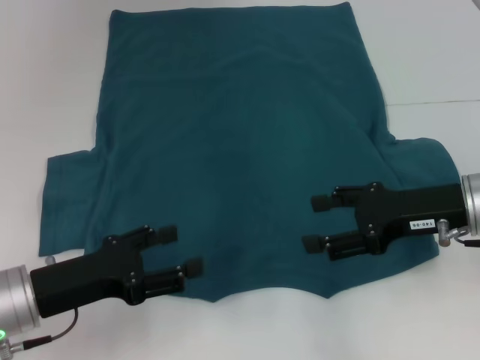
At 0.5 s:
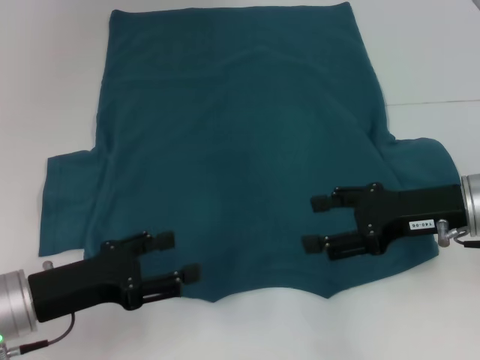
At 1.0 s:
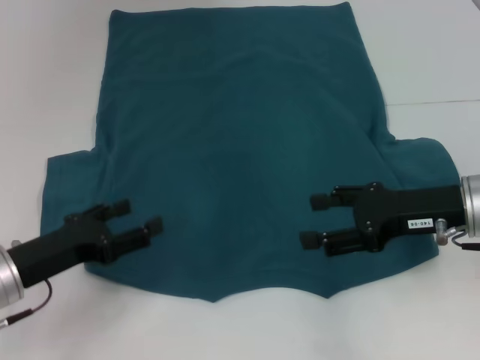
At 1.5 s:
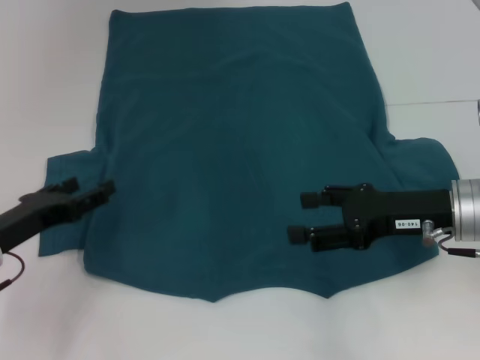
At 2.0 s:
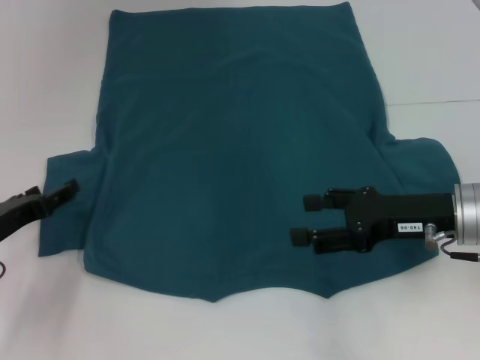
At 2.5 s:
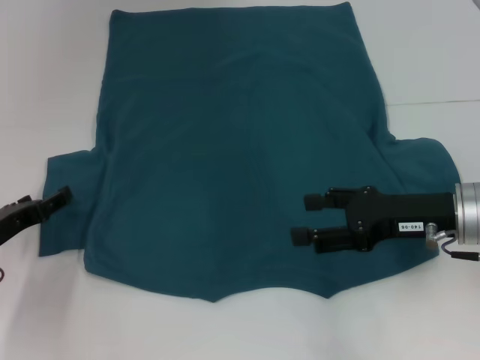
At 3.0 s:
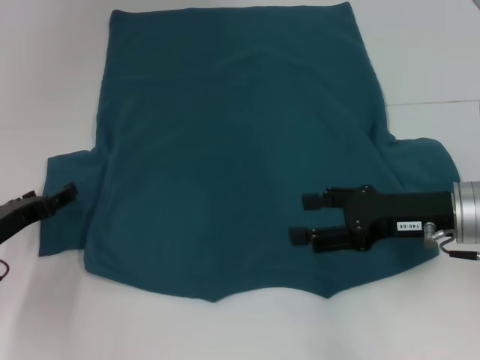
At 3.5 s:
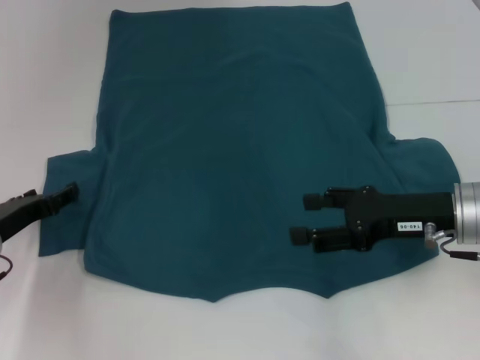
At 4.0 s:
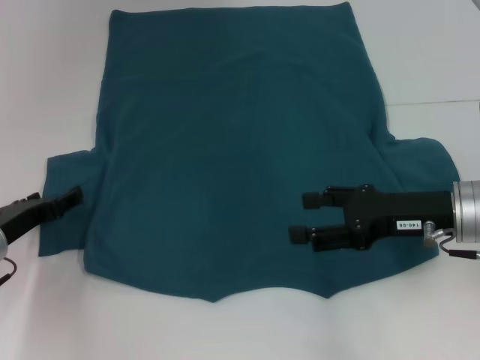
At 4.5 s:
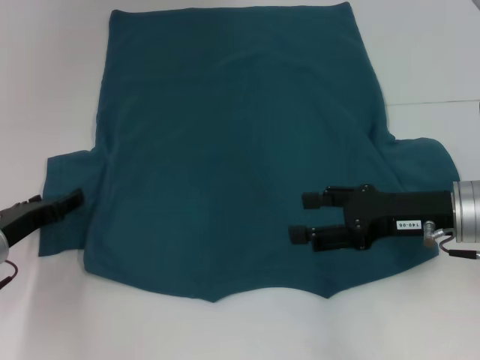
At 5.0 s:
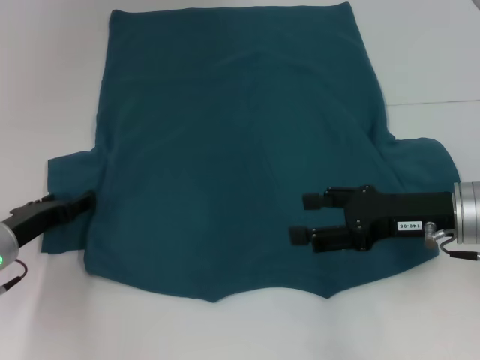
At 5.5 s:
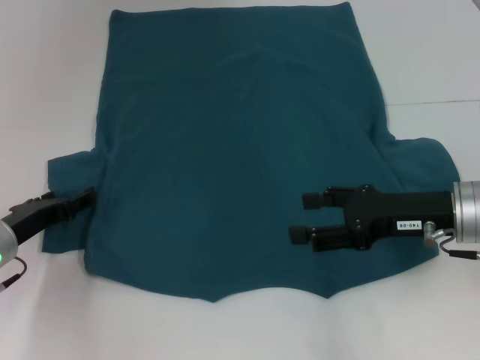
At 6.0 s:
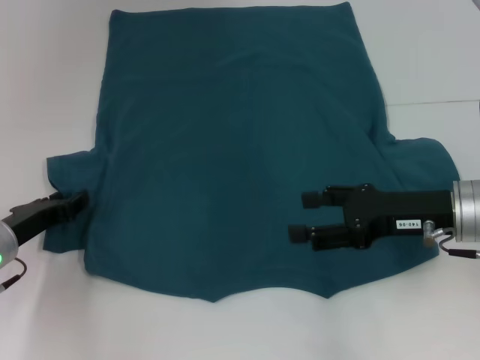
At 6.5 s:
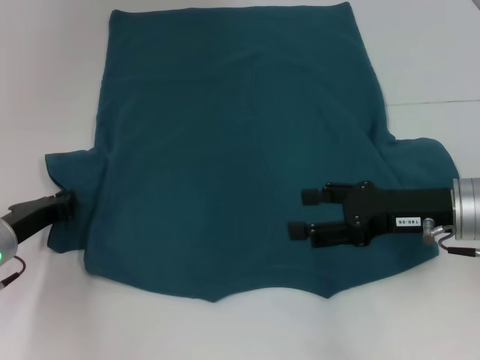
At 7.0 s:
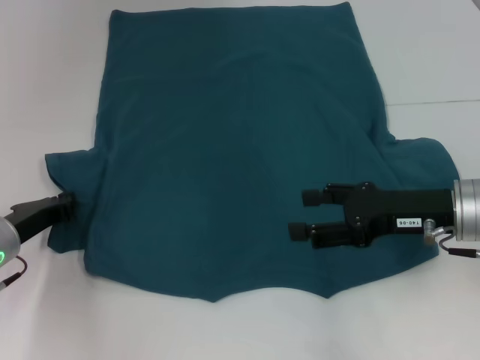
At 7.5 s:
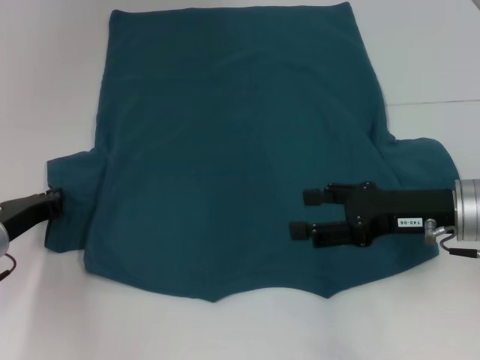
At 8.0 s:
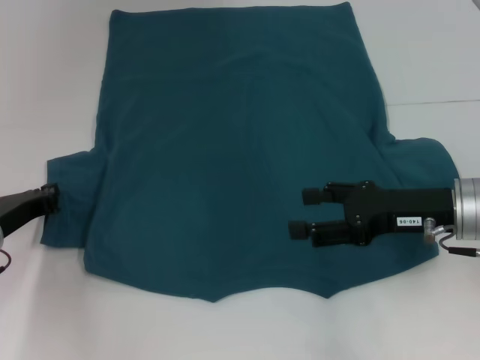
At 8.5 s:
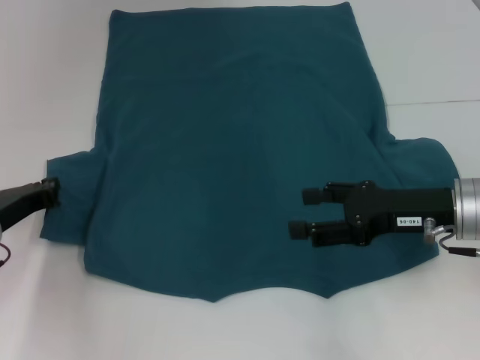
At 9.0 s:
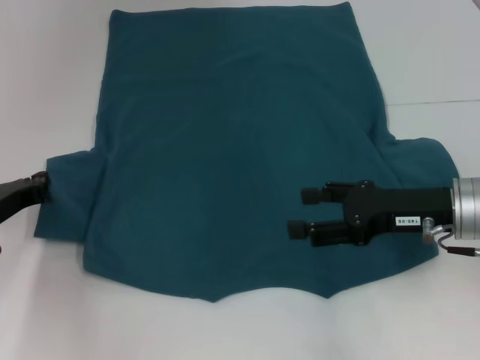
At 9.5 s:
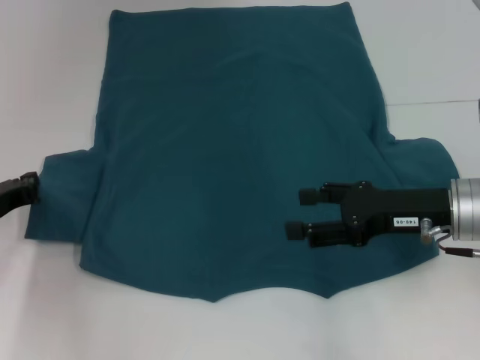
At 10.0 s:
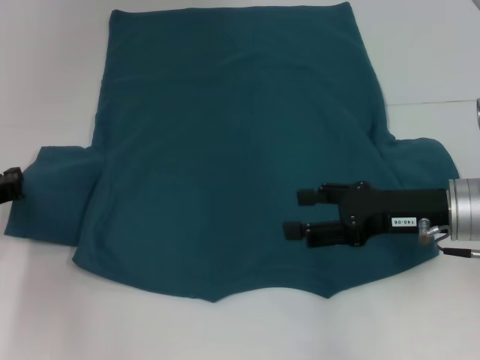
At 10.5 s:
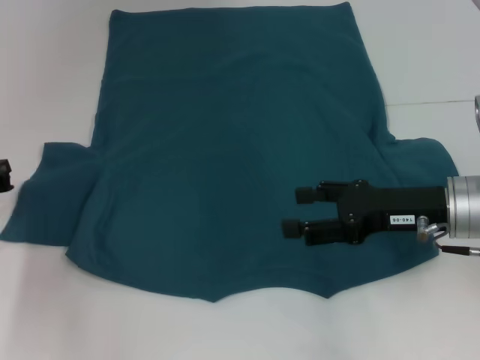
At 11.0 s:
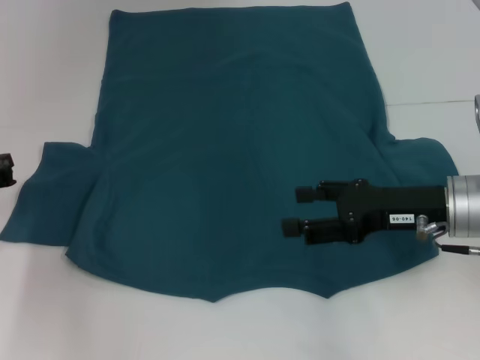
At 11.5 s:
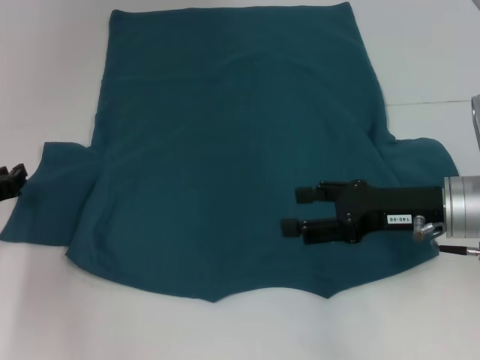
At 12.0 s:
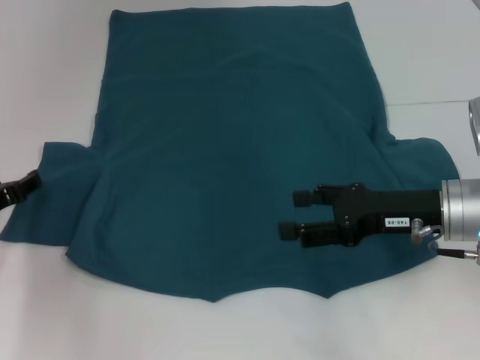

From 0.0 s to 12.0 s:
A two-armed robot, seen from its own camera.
From 0.0 s to 2.0 s: The left gripper is displaced to the left and forward by roughly 10 cm.
From 2.0 s to 4.0 s: The grippers stay close to where they were, moving slightly.
From 4.0 s to 6.0 s: Both grippers stay put.
From 6.0 s to 8.0 s: The left gripper closes.
From 8.0 s to 10.0 s: The grippers stay close to where they were, moving slightly.
From 10.0 s to 12.0 s: The left gripper opens up.

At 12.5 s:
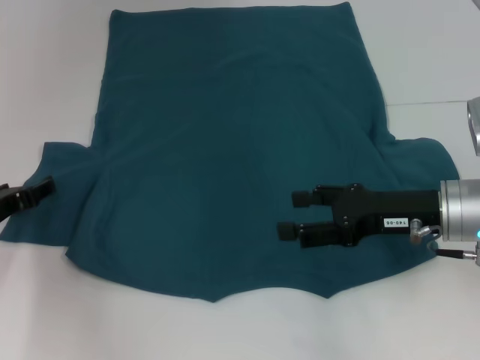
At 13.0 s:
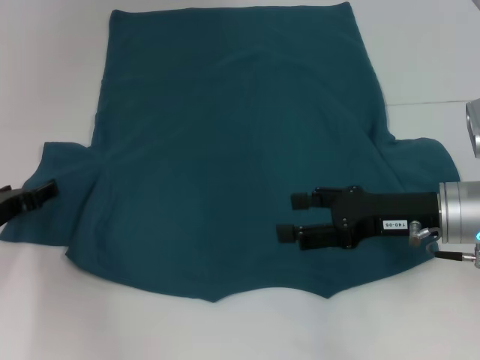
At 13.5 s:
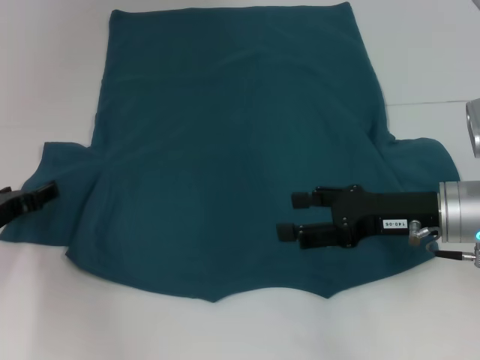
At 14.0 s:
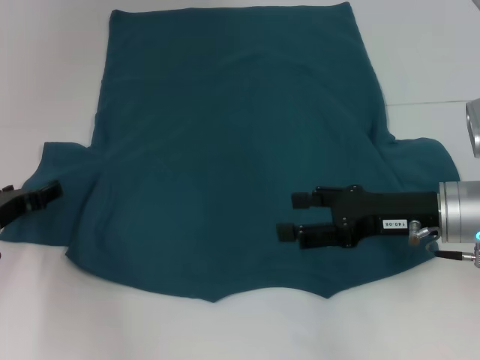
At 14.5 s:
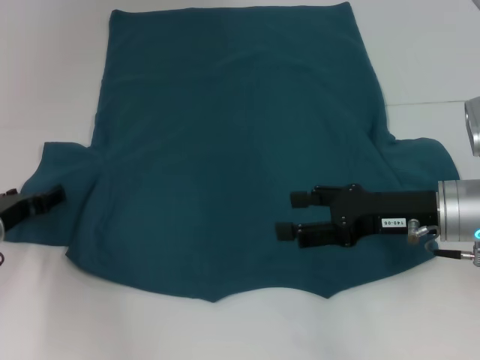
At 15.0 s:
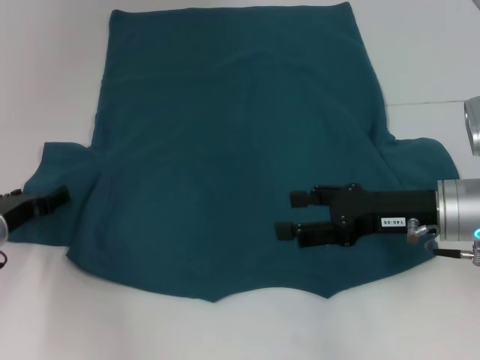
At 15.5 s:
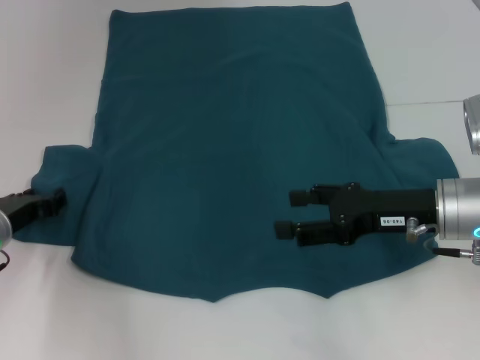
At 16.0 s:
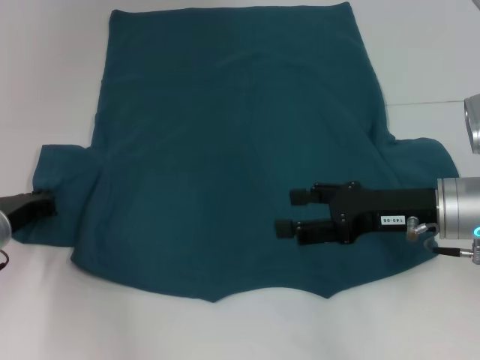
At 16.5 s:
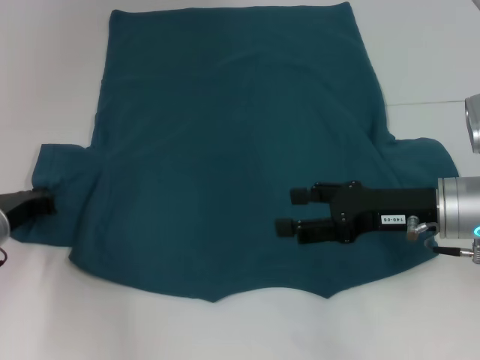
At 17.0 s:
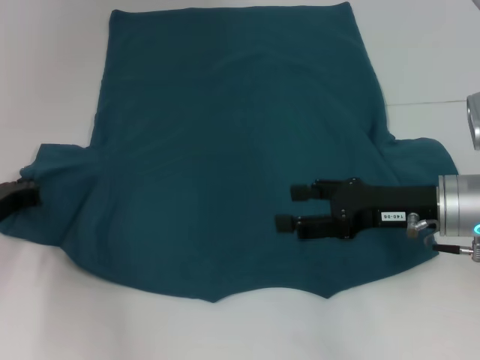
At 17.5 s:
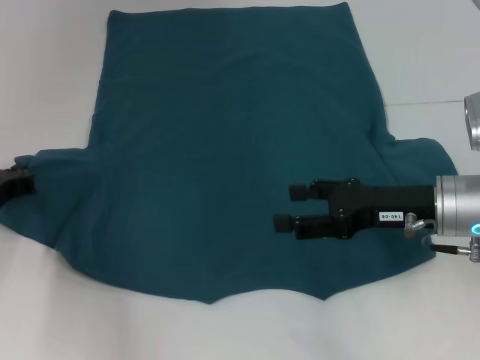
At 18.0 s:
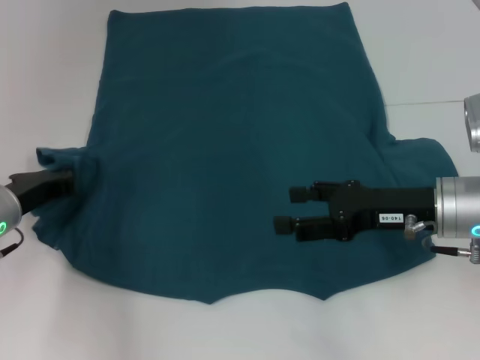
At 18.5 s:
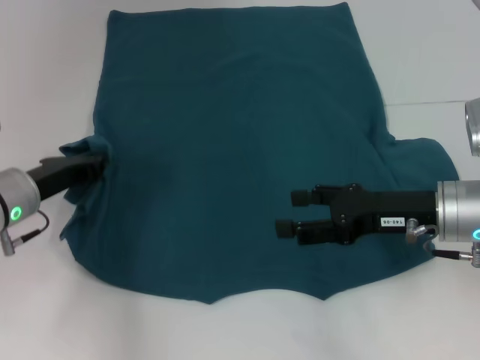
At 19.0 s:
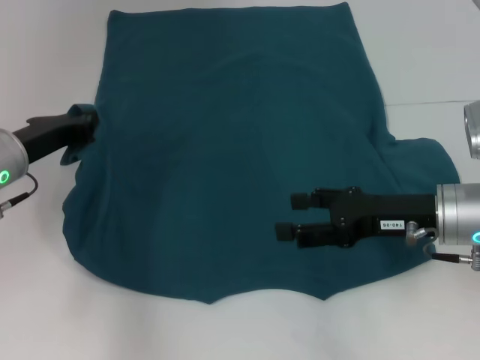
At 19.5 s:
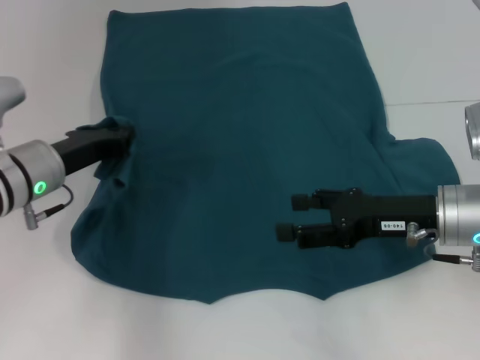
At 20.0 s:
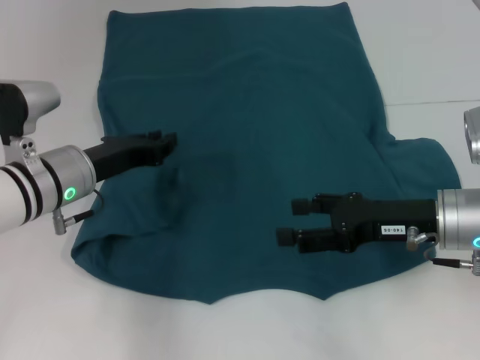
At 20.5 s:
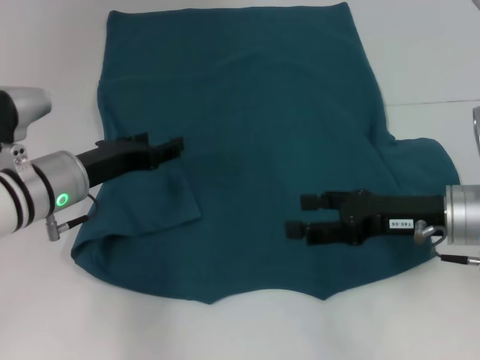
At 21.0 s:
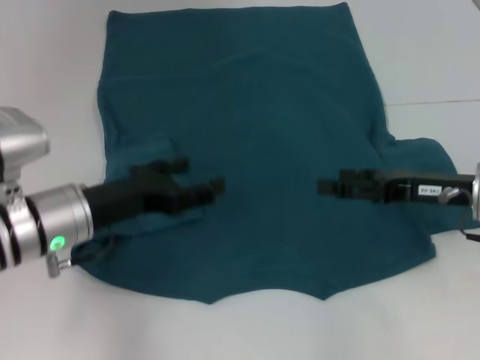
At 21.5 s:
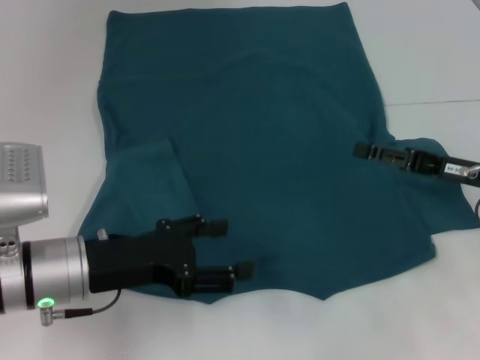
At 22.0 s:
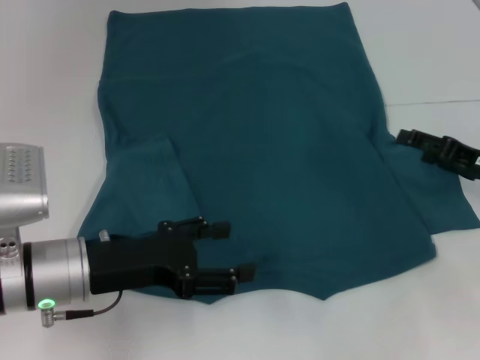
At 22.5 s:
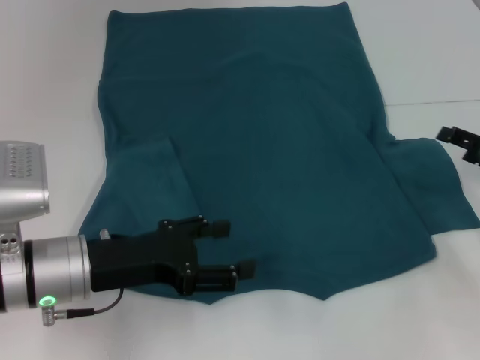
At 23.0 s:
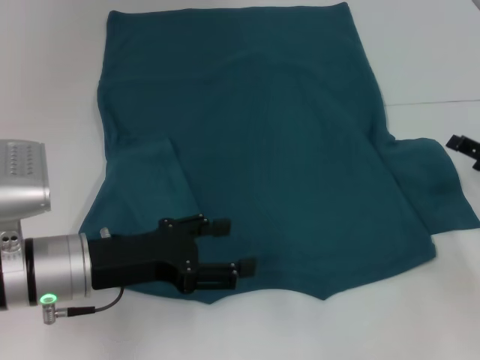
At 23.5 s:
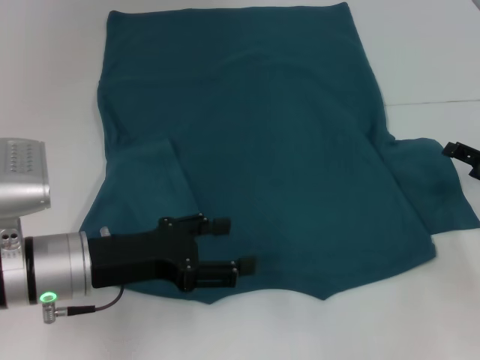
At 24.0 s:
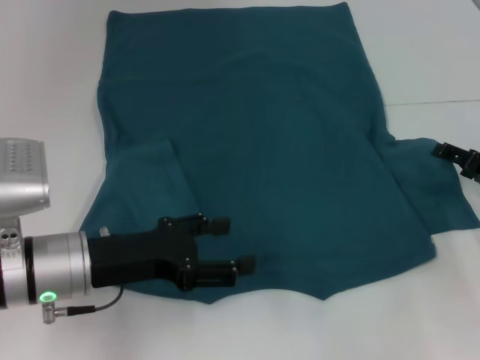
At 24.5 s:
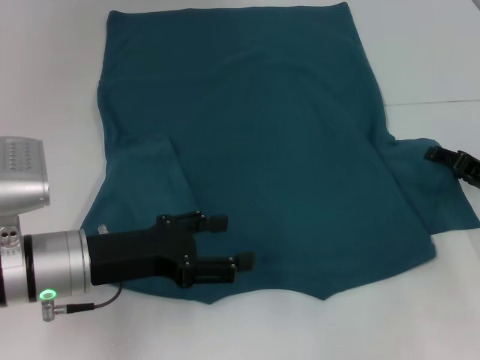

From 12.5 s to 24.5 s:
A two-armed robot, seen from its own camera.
Step, from 12.5 s to 20.5 s: Fold the bottom left sleeve with your left hand.
From 12.5 s to 14.5 s: The grippers make only small movements.
From 14.5 s to 16.5 s: The left gripper closes up.
From 16.5 s to 18.5 s: The left gripper moves about 5 cm.
From 18.5 s to 20.5 s: The left gripper shifts by some 5 cm, and opens up.
From 20.5 s to 22.5 s: The left gripper goes some 10 cm backward. The right gripper moves to the right, some 10 cm.
From 22.5 s to 24.5 s: The grippers move only a little.

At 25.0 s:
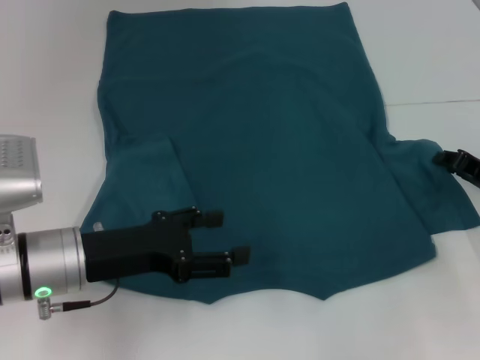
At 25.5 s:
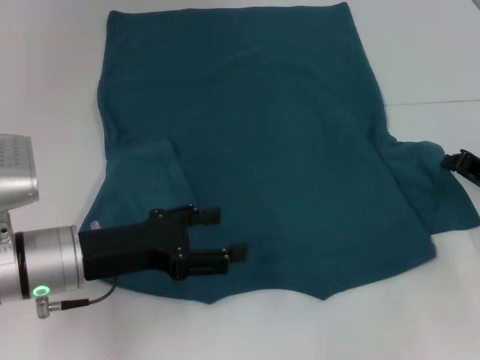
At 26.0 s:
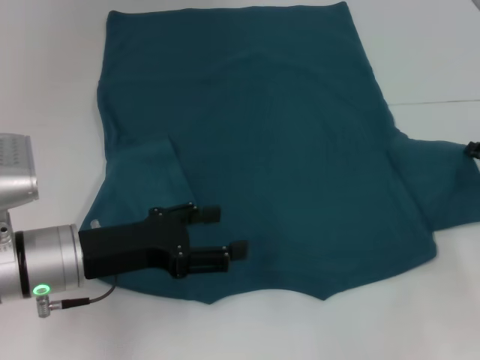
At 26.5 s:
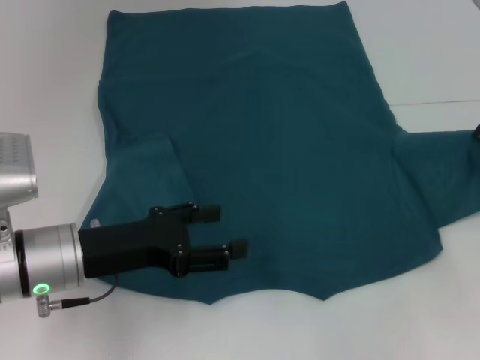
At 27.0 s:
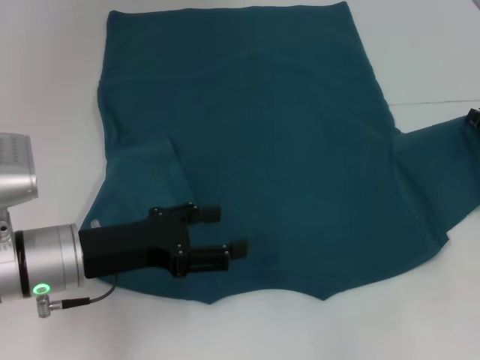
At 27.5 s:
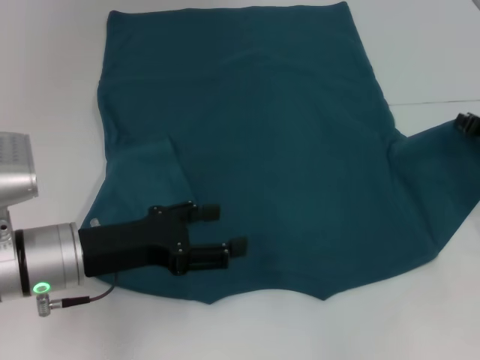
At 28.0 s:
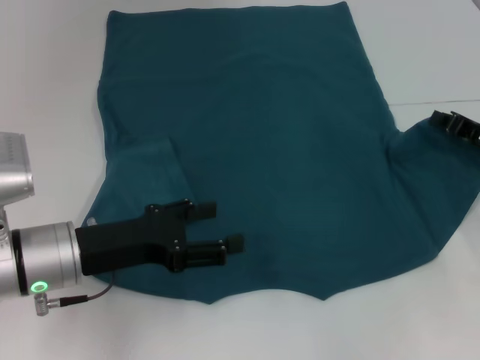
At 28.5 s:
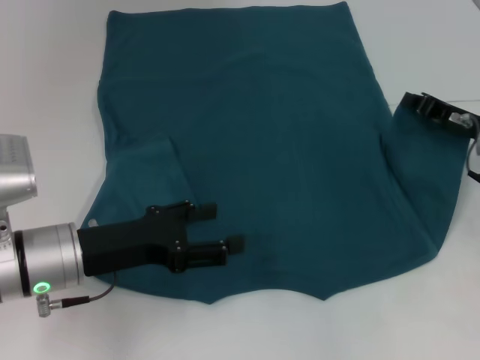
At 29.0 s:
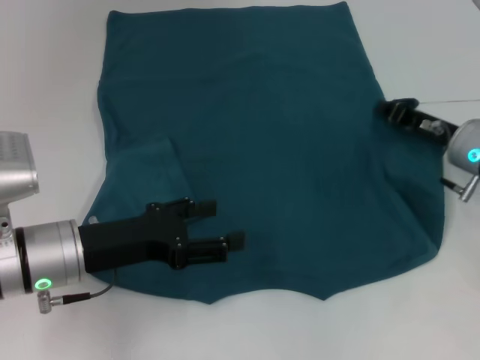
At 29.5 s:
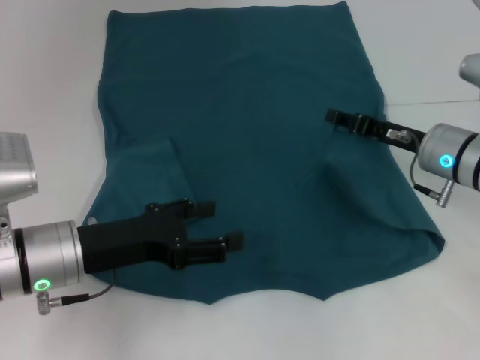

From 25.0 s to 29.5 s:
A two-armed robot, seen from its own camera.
From 25.0 s to 27.0 s: The right gripper closes its fingers.
From 27.0 s to 29.5 s: The right gripper goes approximately 10 cm to the left.
